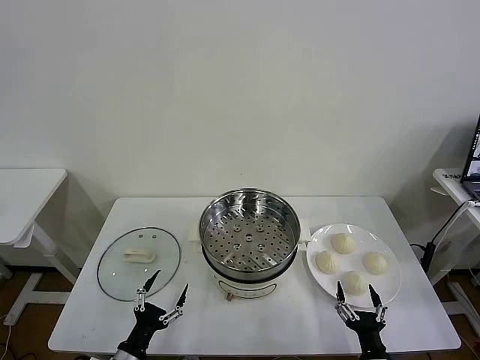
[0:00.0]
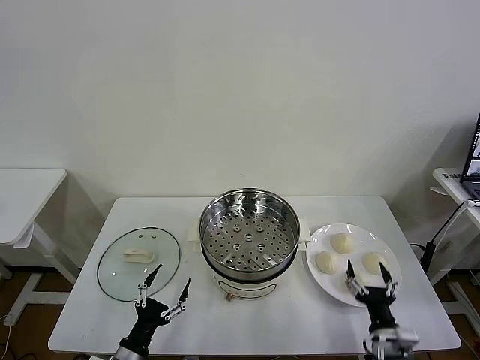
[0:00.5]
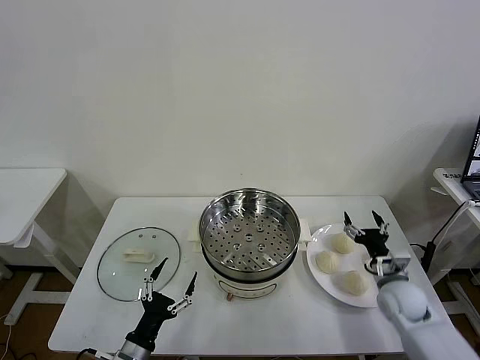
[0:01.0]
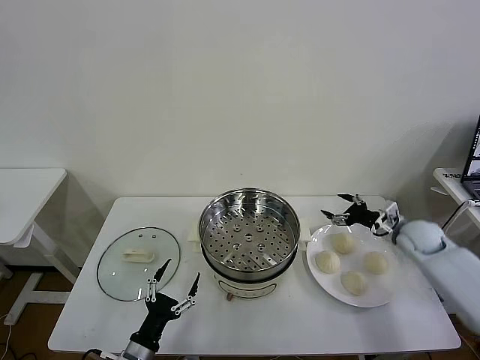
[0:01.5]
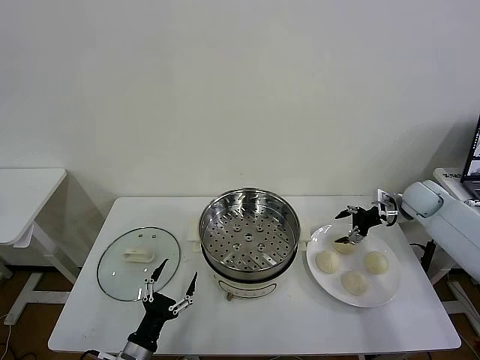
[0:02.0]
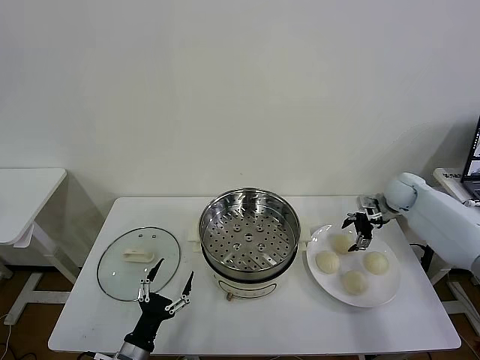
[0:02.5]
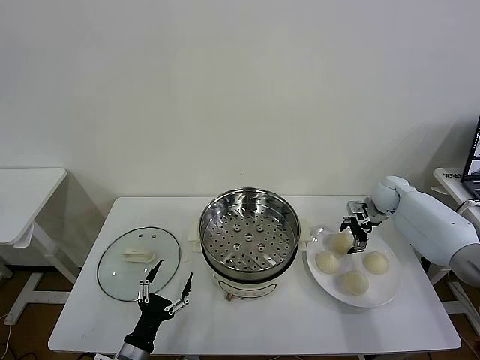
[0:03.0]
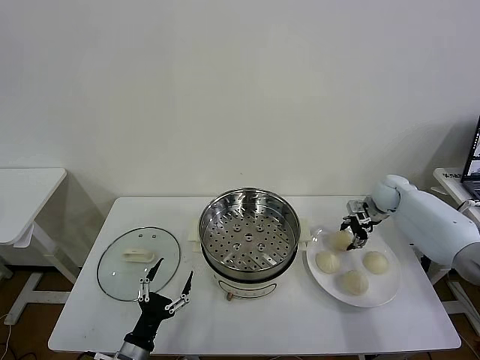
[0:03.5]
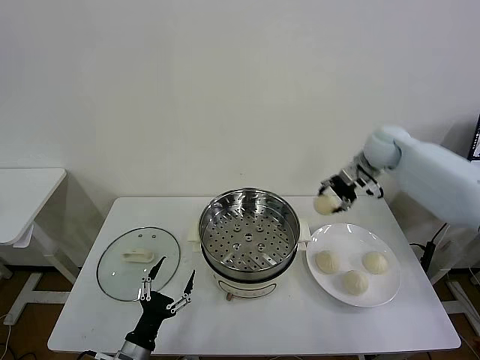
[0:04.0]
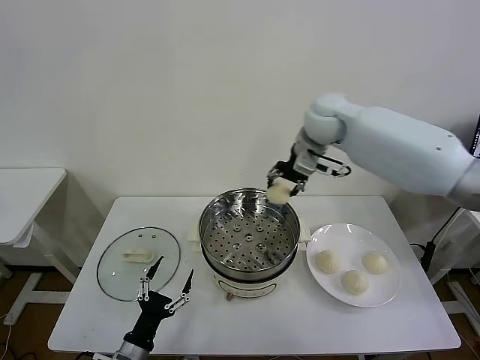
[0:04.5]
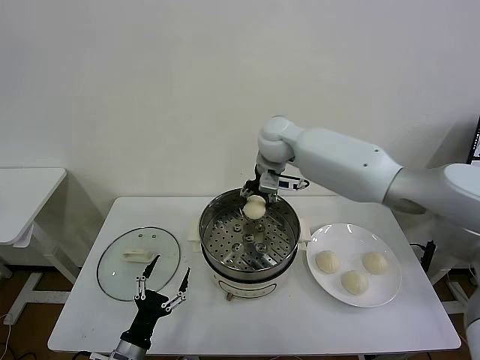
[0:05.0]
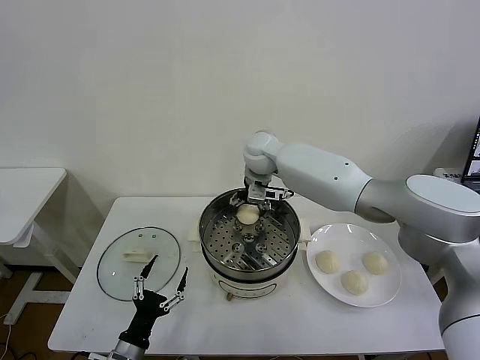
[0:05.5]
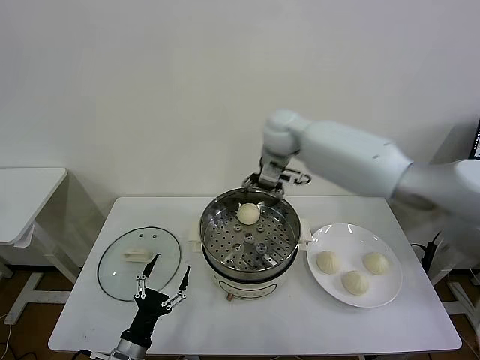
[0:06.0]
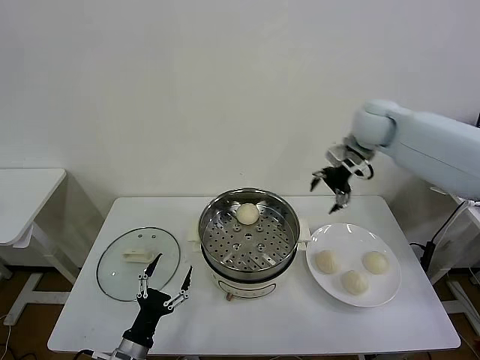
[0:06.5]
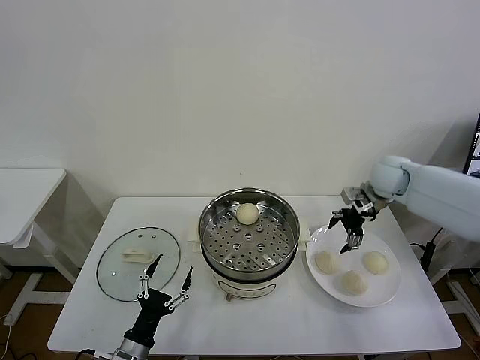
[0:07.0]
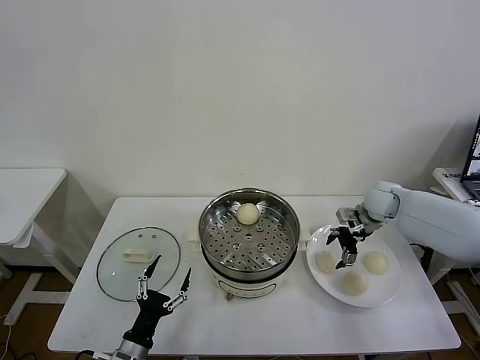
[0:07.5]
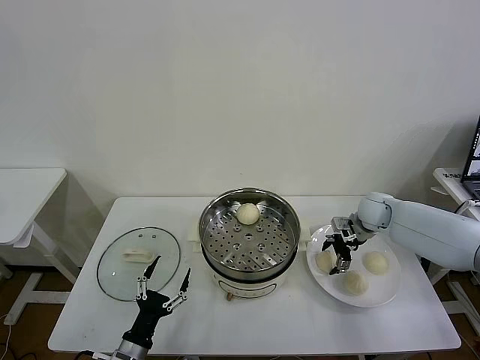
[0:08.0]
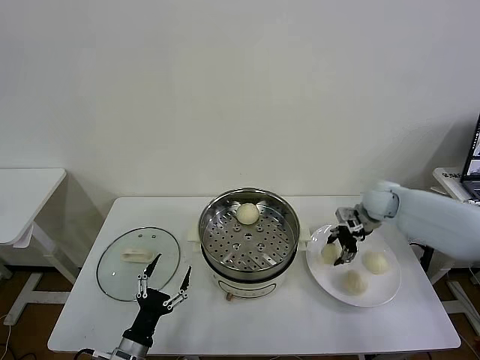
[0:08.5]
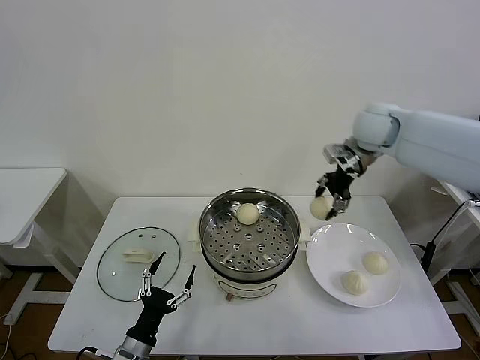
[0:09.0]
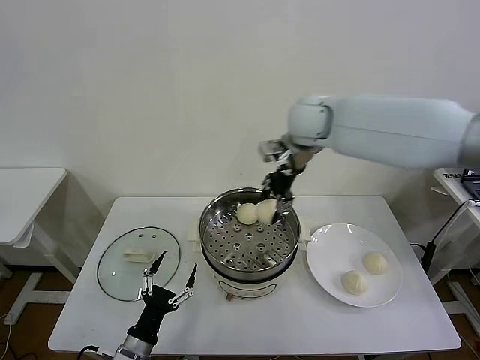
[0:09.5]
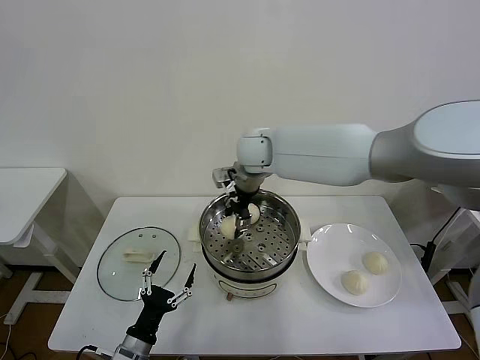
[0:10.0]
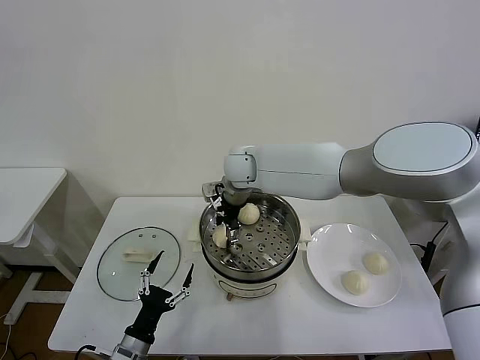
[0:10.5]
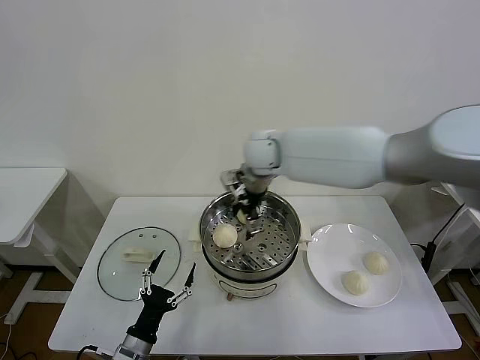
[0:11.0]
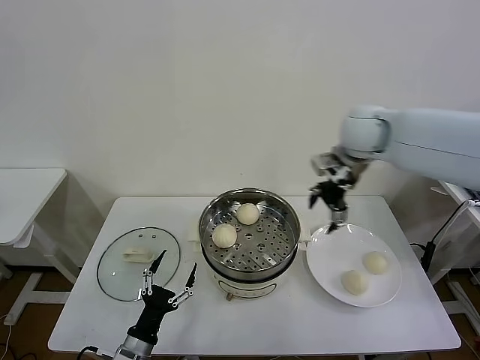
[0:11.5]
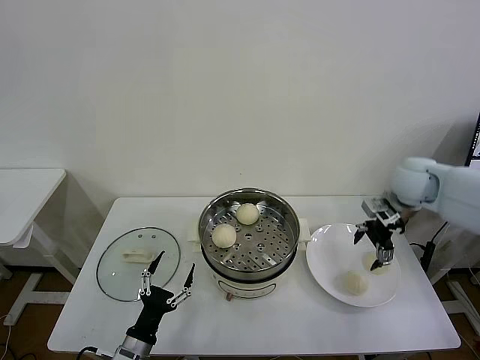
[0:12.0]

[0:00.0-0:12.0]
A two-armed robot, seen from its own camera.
Task of the whole recording: take steamed baozi put them in steamer then cover it.
Step, 0:00.0 to 0:03.0: Grasp the baozi in the plate with right gripper.
Step, 0:03.5 to 0:05.5: Place the baozi on the steamer with right gripper.
Step, 0:06.0 to 0:08.0: Grasp the baozi in the plate with right gripper.
Step, 0:08.5 to 0:10.5: Place the baozi on the steamer with right gripper.
0:02.0 to 0:04.0: The right gripper heads upward and to the left, covering about 20 cm, and closes its fingers.
0:04.0 to 0:06.0: The right gripper shifts approximately 15 cm to the left, and opens up.
0:06.0 to 0:08.0: The right gripper moves downward and to the right, about 30 cm, and closes.
0:08.0 to 0:10.0: The right gripper is displaced to the left and upward by some 35 cm, and closes.
0:10.0 to 0:12.0: The right gripper is displaced to the right by about 35 cm, and opens its fingers.

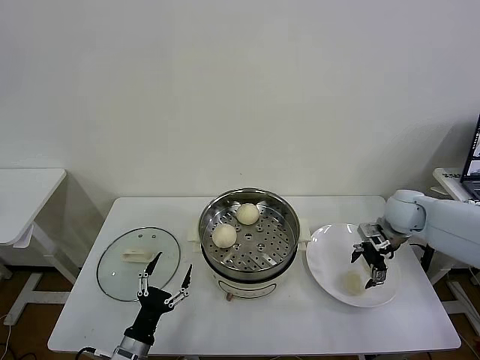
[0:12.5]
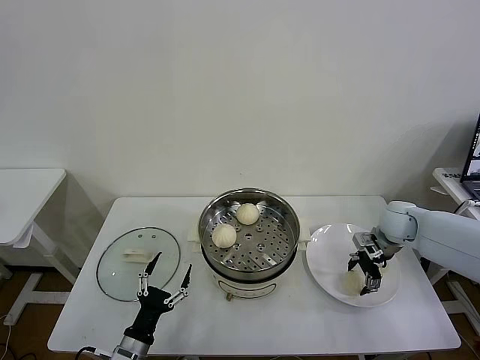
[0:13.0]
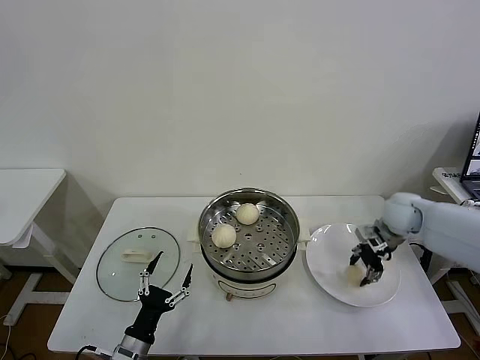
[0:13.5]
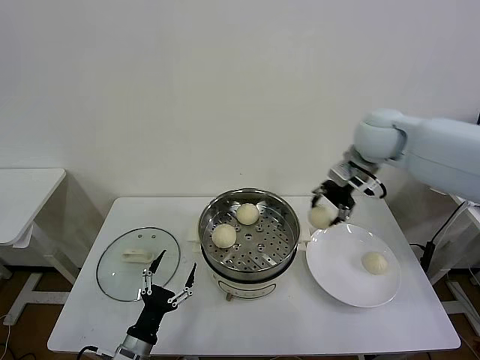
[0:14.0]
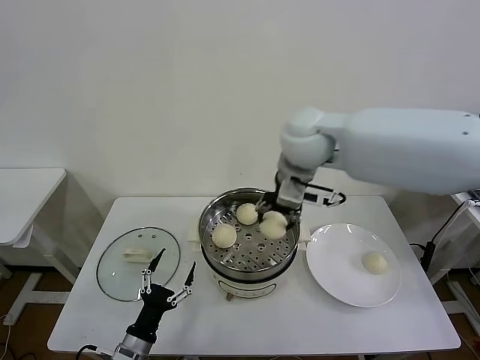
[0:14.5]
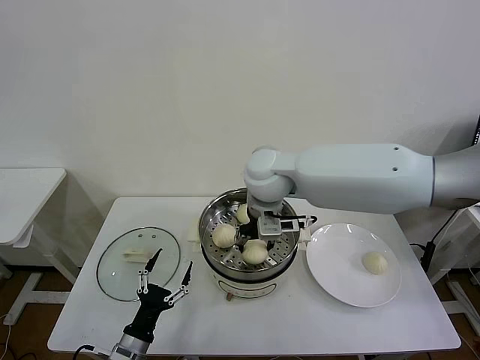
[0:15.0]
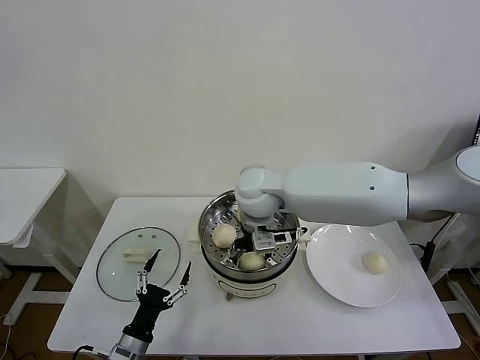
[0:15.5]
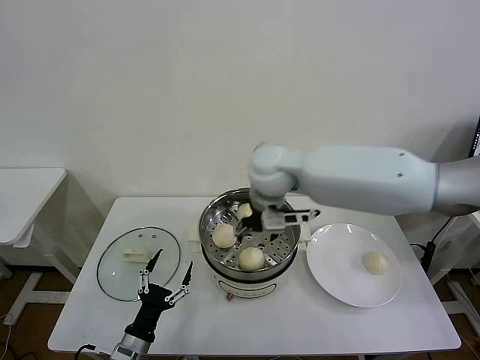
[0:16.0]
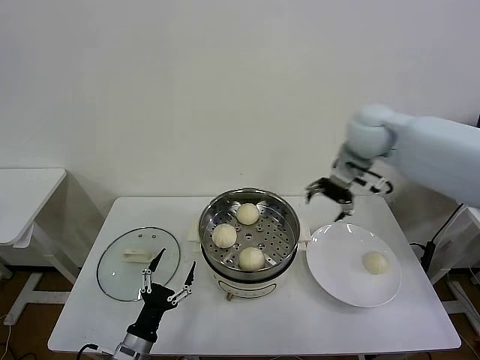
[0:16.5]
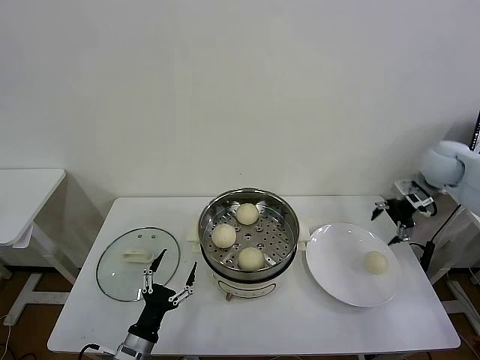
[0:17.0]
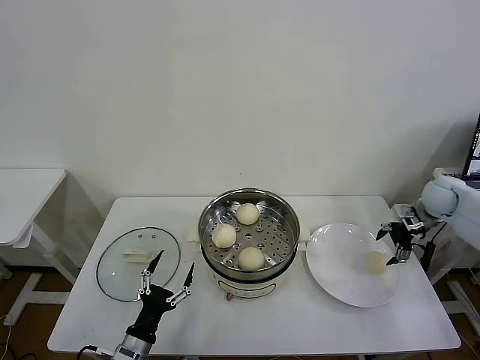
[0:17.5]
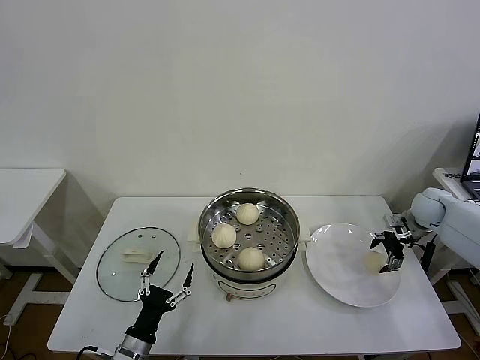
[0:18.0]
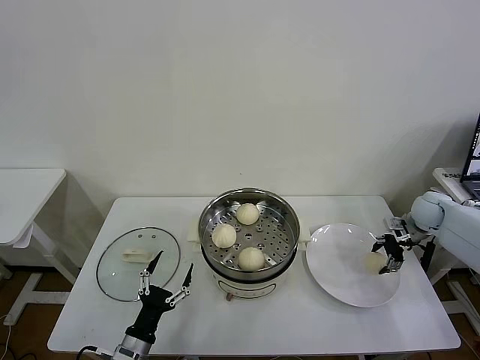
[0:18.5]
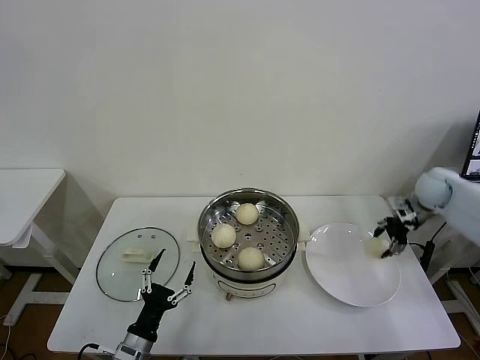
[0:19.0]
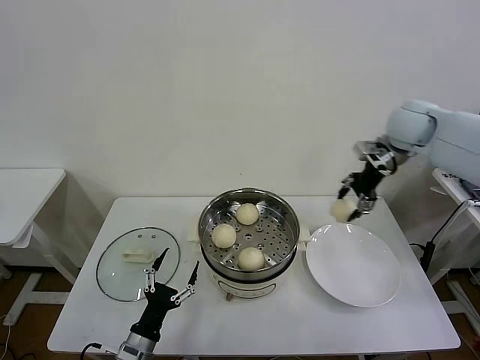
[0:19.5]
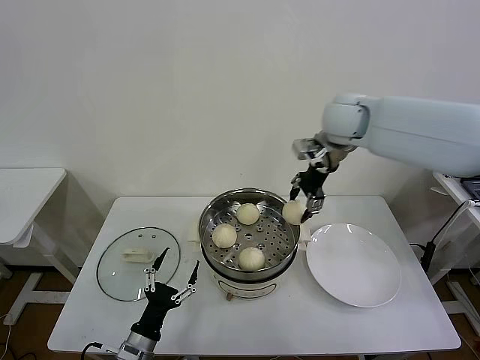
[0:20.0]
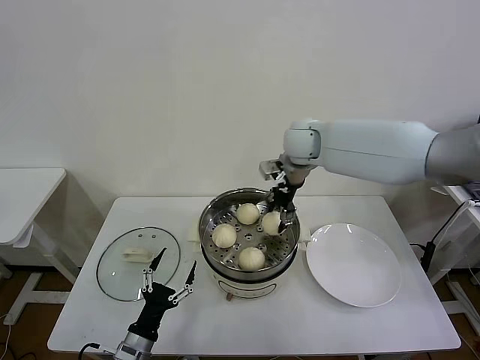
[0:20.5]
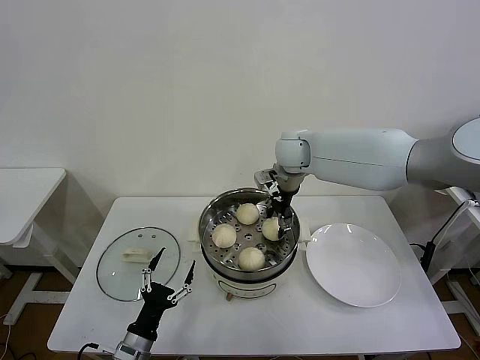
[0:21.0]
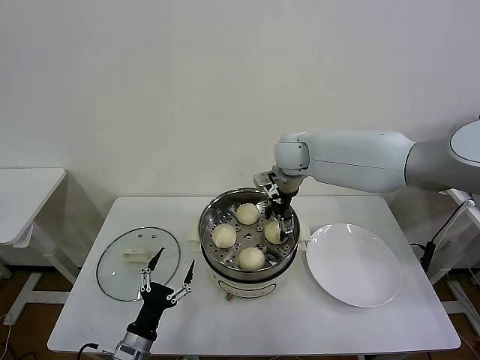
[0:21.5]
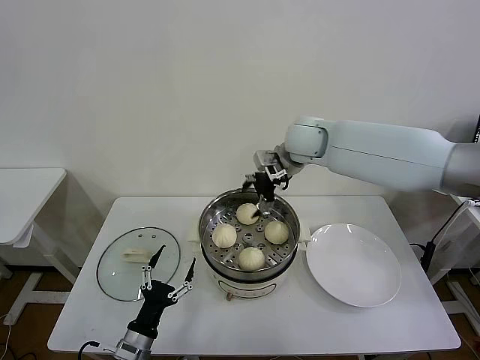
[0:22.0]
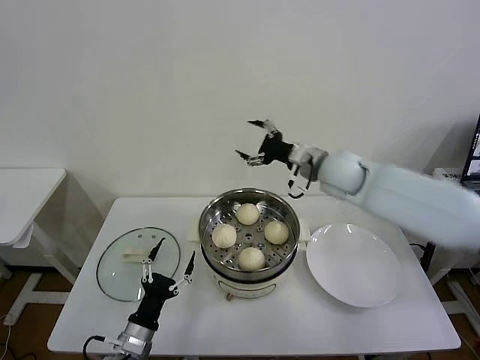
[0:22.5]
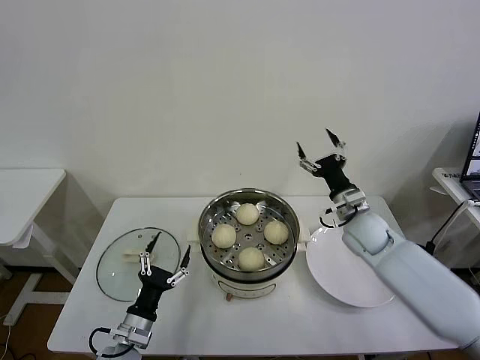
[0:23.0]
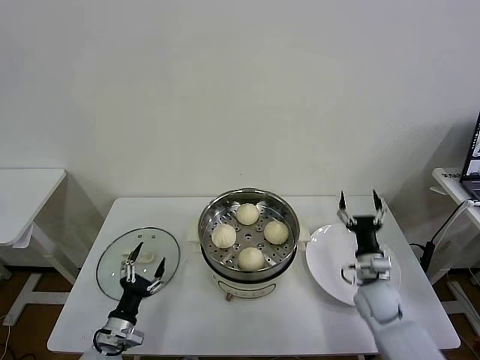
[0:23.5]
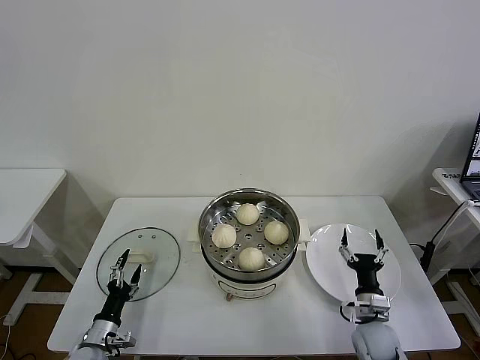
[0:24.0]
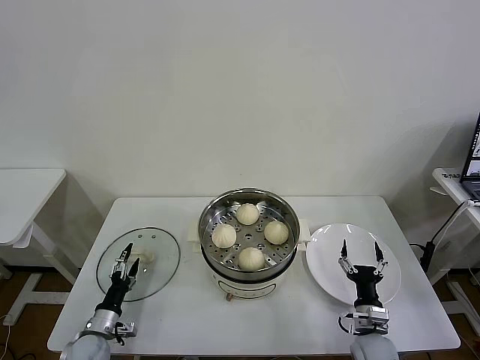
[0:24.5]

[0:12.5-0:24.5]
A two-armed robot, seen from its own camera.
Task of the whole recording: take steamed baozi put them in steamer then cover it.
Step, 0:13.5 to 0:15.5: Place the baozi on the steamer with right gripper.
Step, 0:16.0 to 0:18.5: Grasp the baozi in the plate with right gripper.
Step, 0:19.0 to 0:21.0: Place the baozi on the steamer with right gripper.
0:12.5 to 0:14.5: The right gripper goes some 35 cm to the left and upward, and closes its fingers.
0:14.5 to 0:16.5: The right gripper is displaced to the right by approximately 20 cm, and opens up.
0:16.5 to 0:18.5: The right gripper goes approximately 30 cm downward and to the right, and closes up.
0:18.5 to 0:20.5: The right gripper heads to the left and upward, covering roughly 40 cm.
0:20.5 to 0:22.5: The right gripper travels to the right and backward by some 10 cm, and opens up.
0:22.5 to 0:24.5: The right gripper moves downward and backward, some 40 cm; the left gripper heads to the left, downward and forward, covering approximately 15 cm.

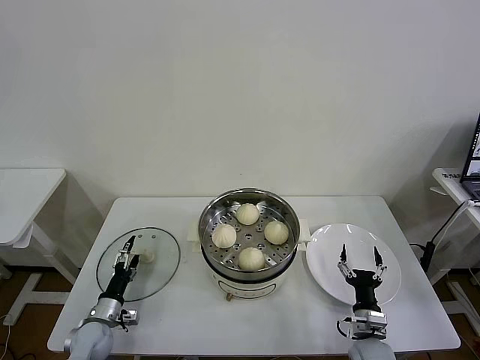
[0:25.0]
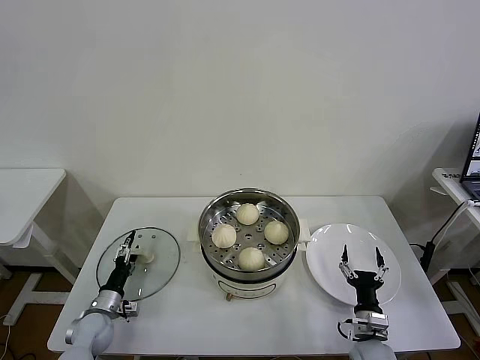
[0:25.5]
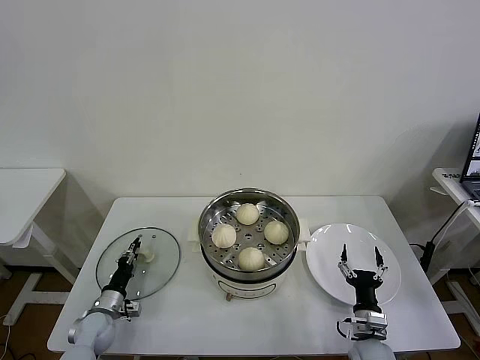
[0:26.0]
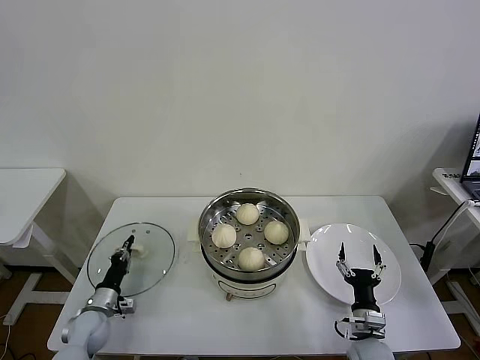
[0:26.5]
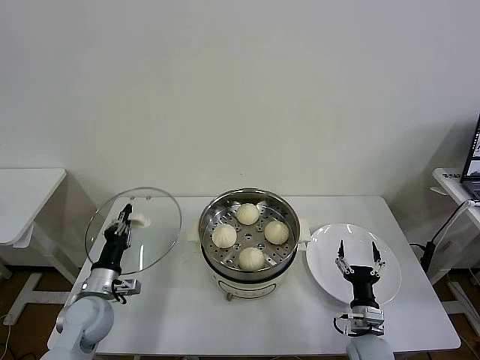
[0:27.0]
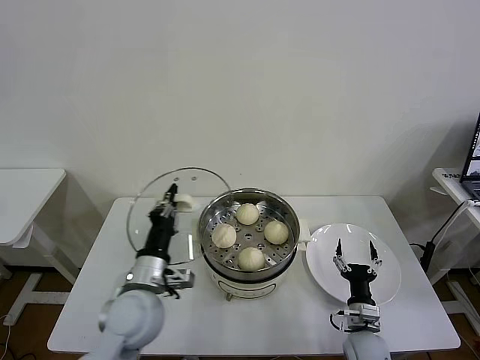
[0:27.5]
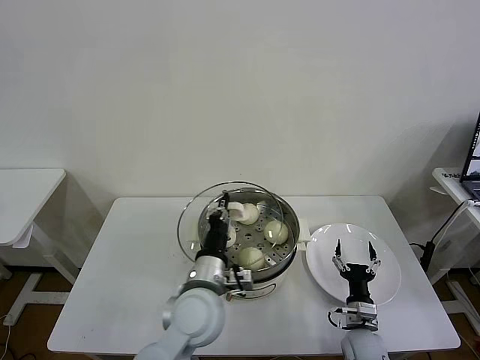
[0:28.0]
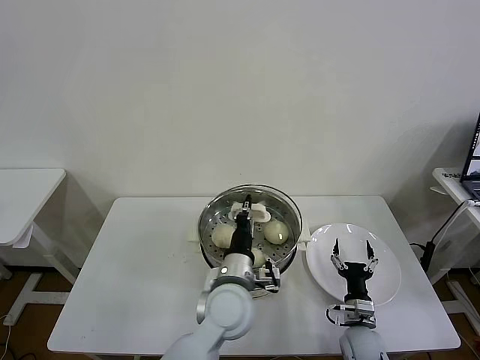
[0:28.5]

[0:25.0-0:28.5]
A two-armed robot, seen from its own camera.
Task of the whole recording: take steamed baozi put them in steamer then cover it.
0:25.0 to 0:27.0: The left gripper goes about 10 cm upward, and closes.
0:27.0 to 0:28.5: The left gripper heads to the right, covering approximately 30 cm.
